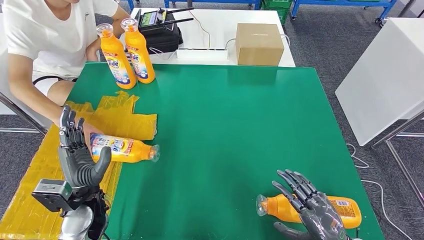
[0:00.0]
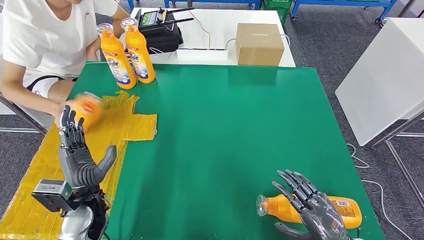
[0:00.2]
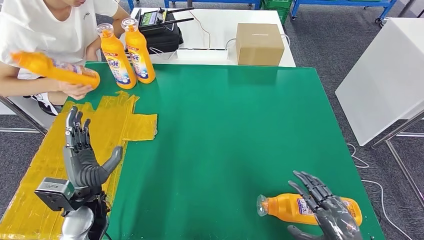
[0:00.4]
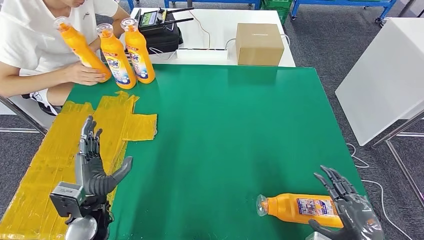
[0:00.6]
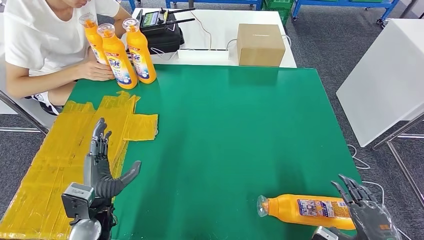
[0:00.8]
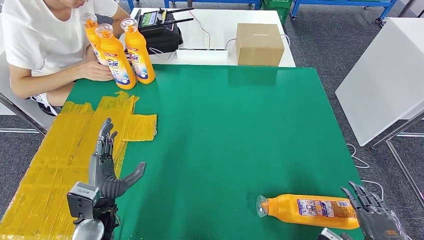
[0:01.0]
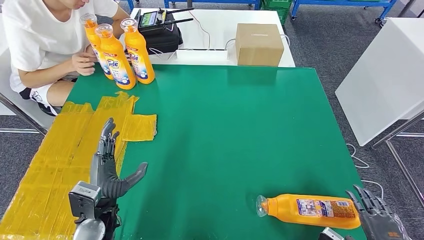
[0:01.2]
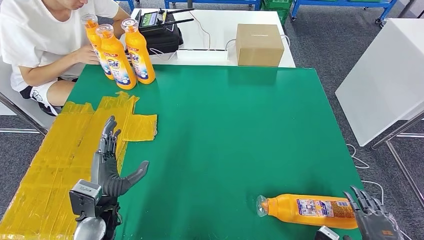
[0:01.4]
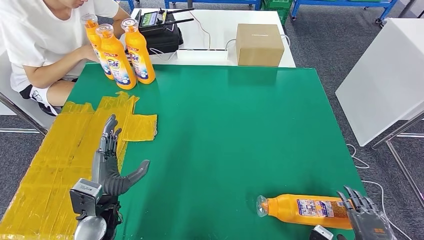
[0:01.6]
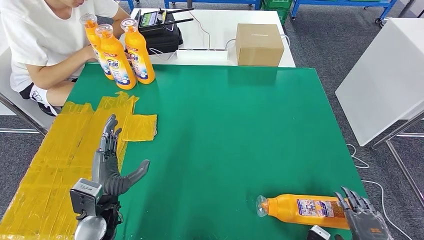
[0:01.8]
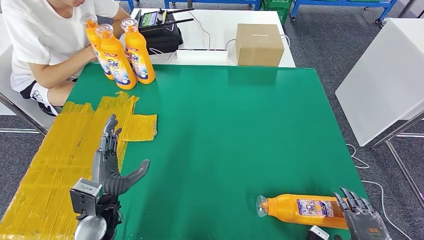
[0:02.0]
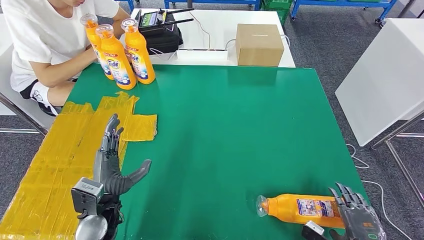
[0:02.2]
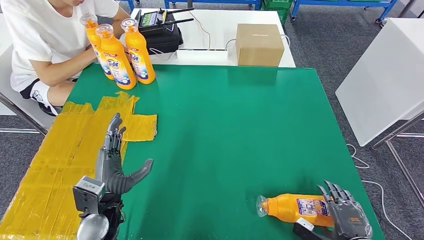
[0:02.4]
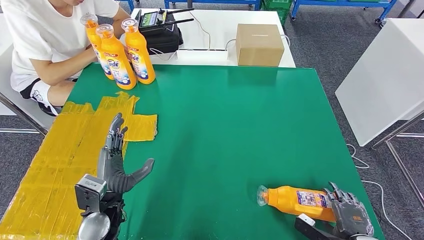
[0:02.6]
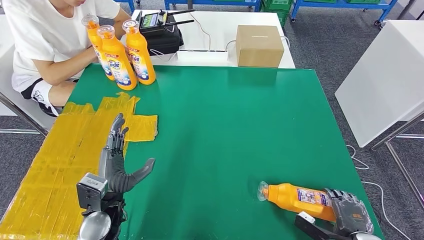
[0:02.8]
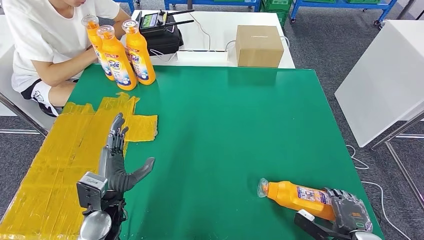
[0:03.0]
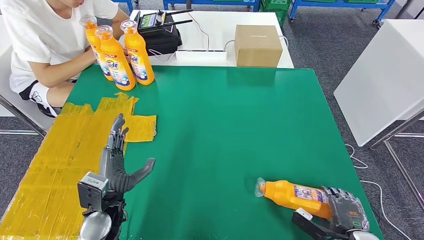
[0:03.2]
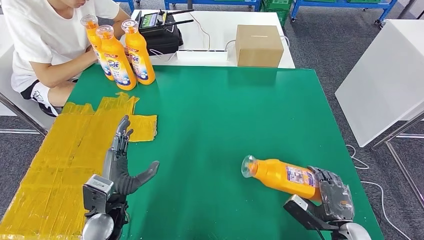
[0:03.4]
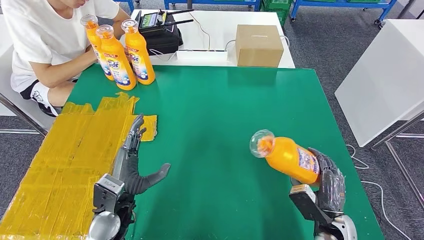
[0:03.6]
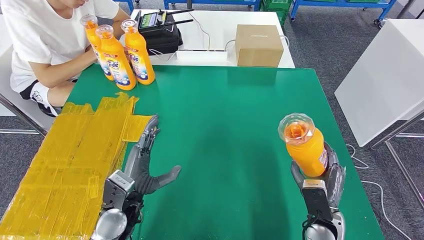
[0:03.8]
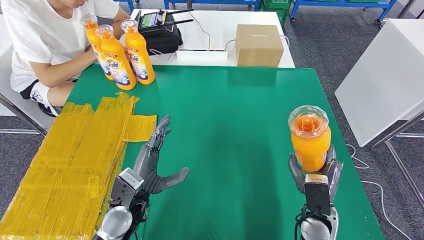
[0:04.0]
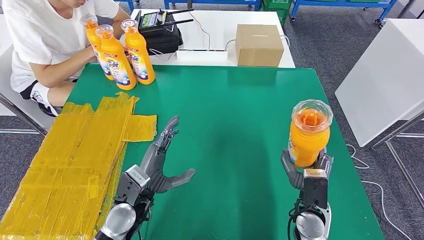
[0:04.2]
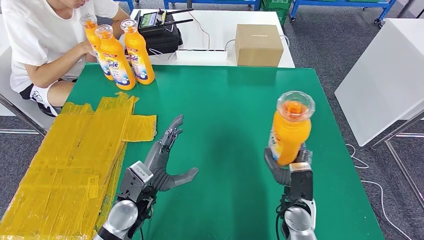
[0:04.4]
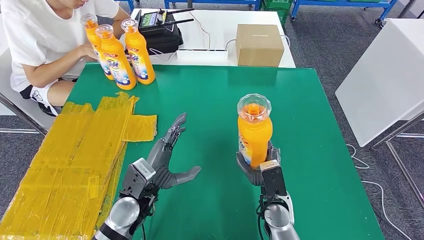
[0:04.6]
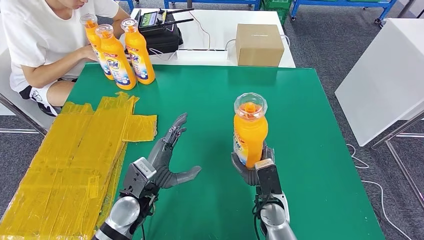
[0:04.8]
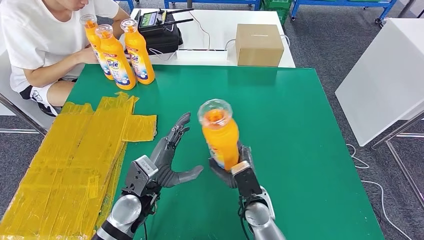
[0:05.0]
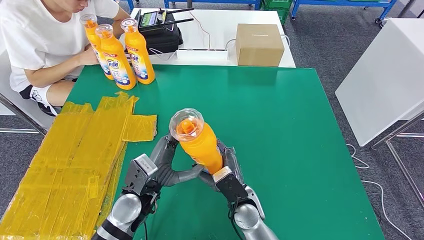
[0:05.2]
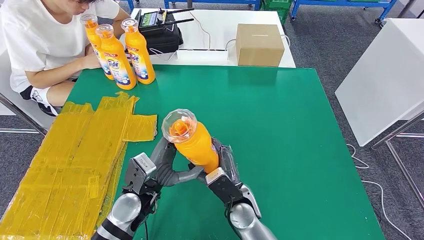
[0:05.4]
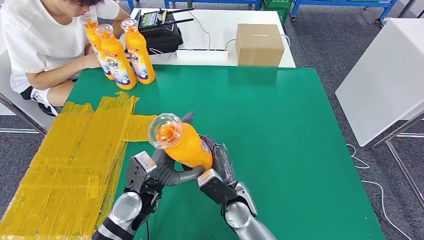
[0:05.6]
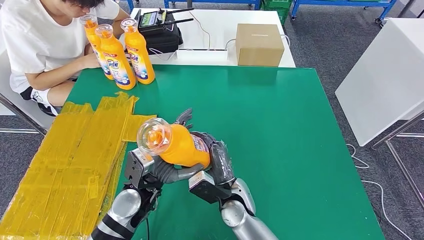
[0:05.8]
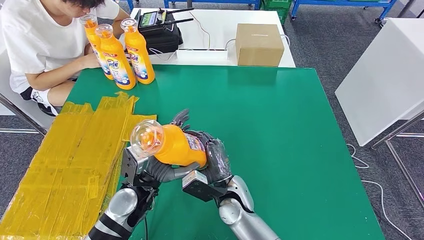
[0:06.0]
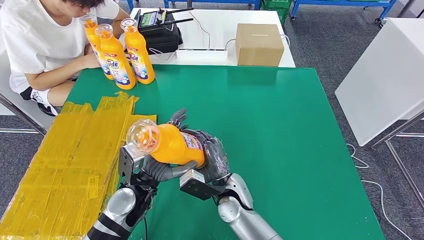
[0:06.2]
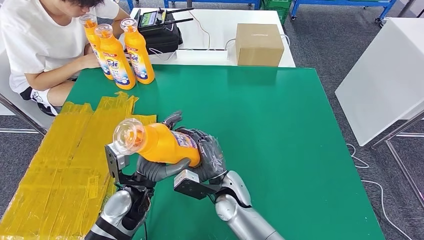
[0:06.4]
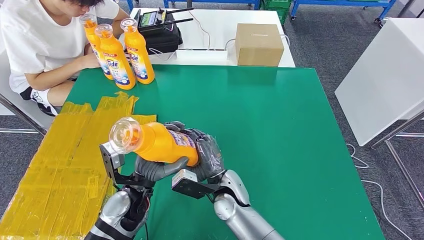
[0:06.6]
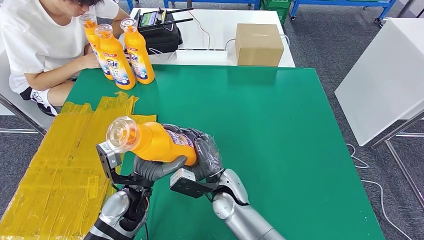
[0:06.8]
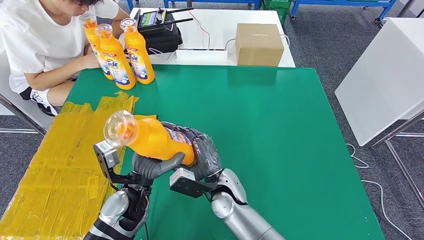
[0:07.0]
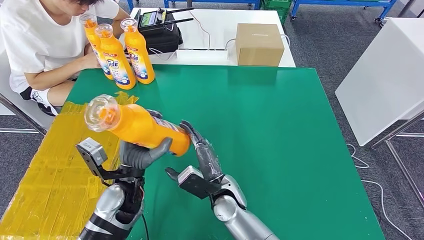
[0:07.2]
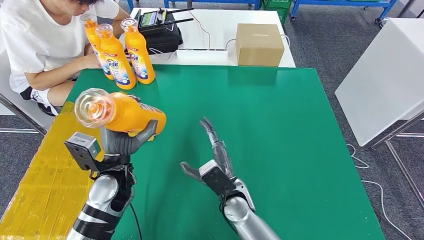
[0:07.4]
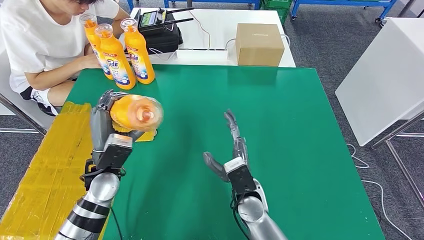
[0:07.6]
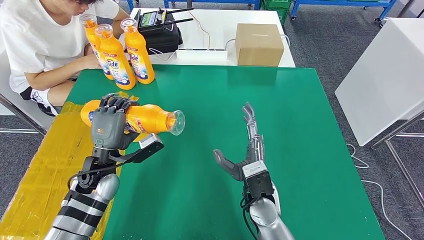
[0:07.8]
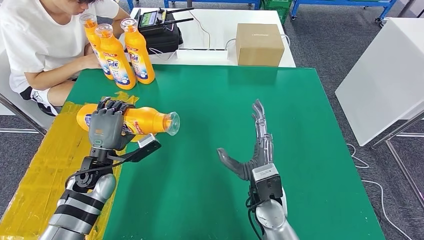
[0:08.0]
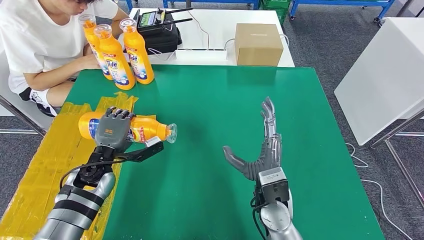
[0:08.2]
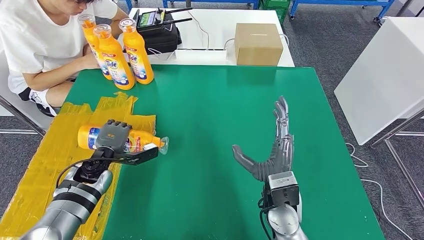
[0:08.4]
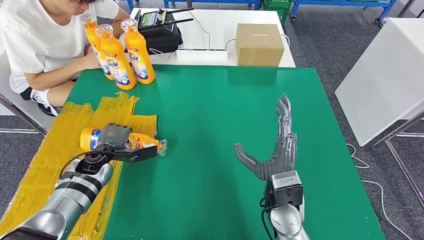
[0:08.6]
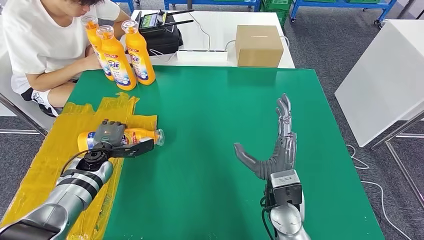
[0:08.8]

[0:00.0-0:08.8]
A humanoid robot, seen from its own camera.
Step, 0:00.0 to 0:04.2: Pick up the fast-moving consumer goods bottle from the table.
Step, 0:04.4 to 0:08.6: Flip the fast-moving consumer goods bottle to the front side.
0:00.0 to 0:01.4: The right hand heads to the right, covering about 10 cm.
0:01.4 to 0:03.0: The right hand changes place by roughly 5 cm.
0:03.0 to 0:04.4: The right hand is displaced to the left and forward by some 20 cm. Meanwhile the left hand heads to the right, covering approximately 5 cm.
0:04.4 to 0:05.8: The right hand is displaced to the left by approximately 15 cm.
0:05.8 to 0:07.4: The left hand is displaced to the left by approximately 5 cm.
